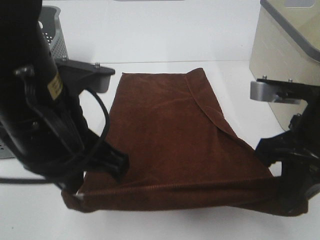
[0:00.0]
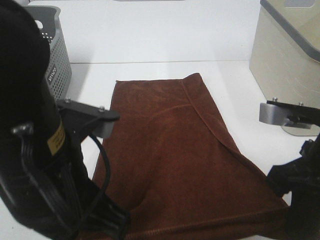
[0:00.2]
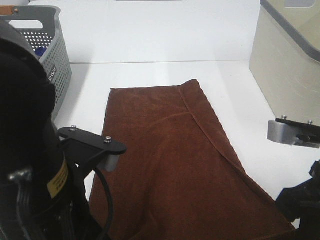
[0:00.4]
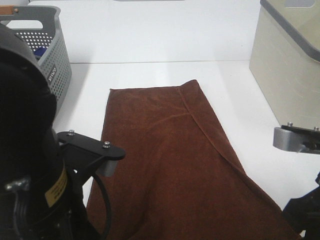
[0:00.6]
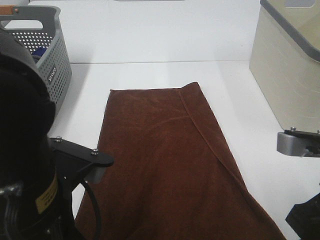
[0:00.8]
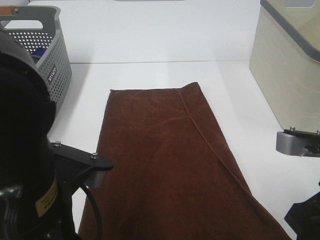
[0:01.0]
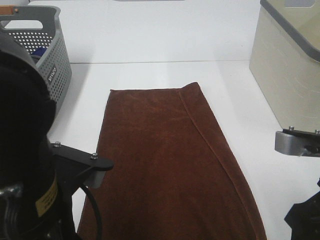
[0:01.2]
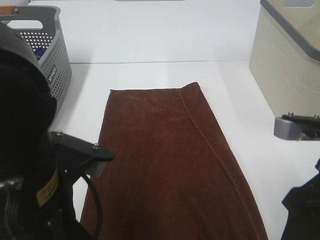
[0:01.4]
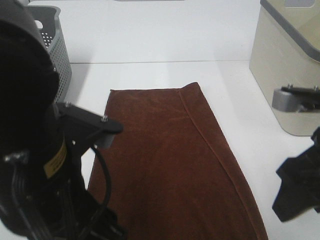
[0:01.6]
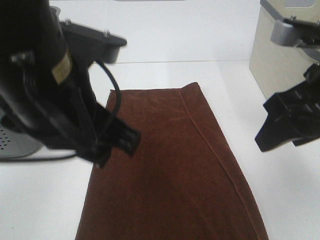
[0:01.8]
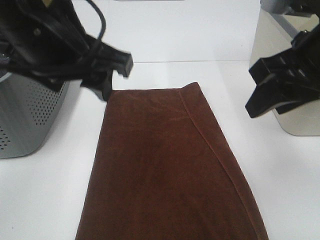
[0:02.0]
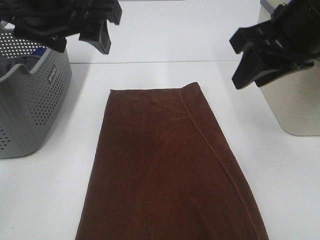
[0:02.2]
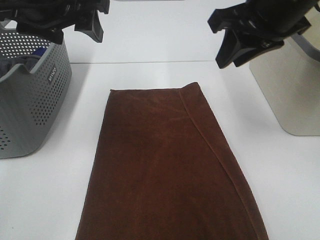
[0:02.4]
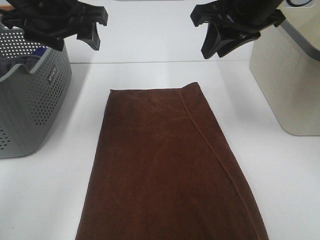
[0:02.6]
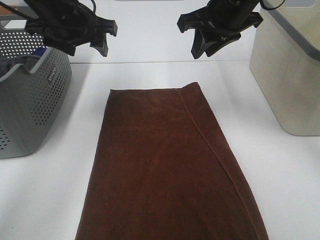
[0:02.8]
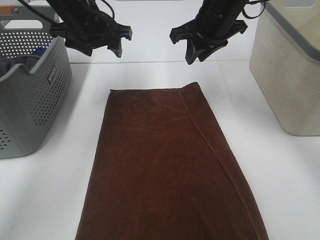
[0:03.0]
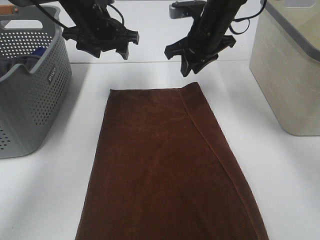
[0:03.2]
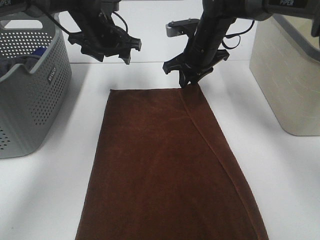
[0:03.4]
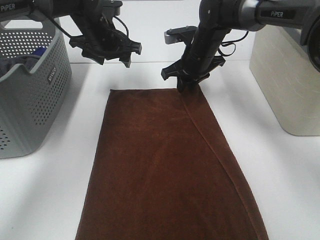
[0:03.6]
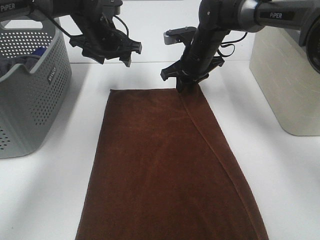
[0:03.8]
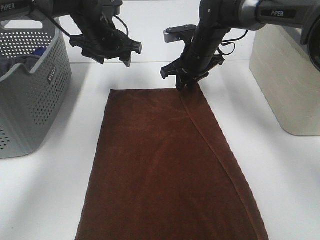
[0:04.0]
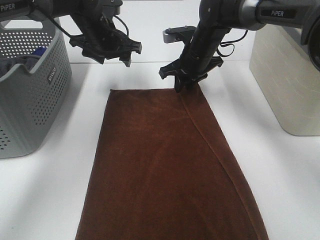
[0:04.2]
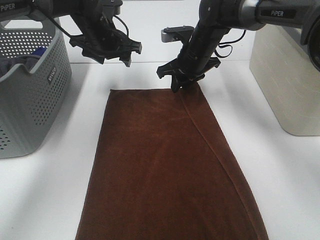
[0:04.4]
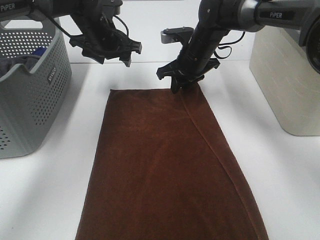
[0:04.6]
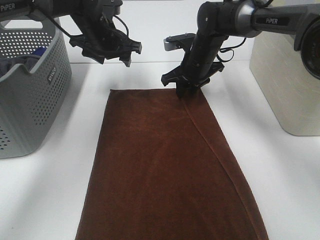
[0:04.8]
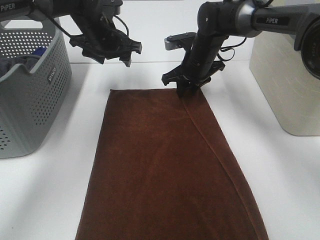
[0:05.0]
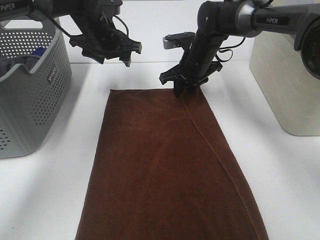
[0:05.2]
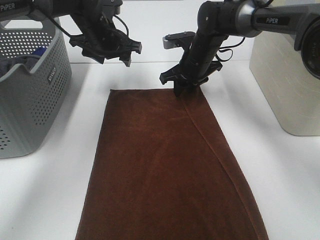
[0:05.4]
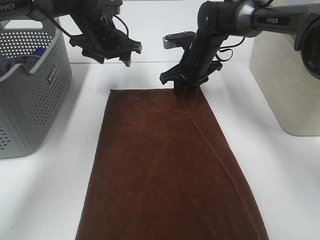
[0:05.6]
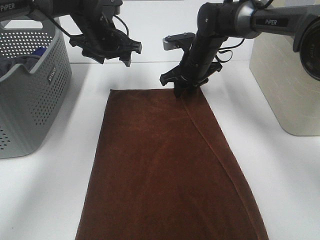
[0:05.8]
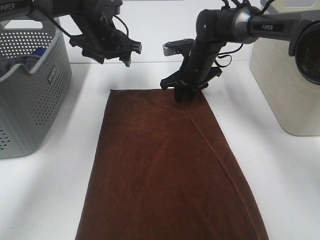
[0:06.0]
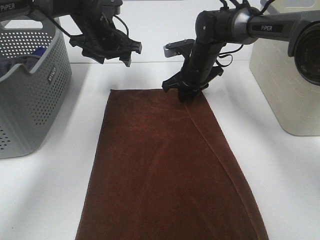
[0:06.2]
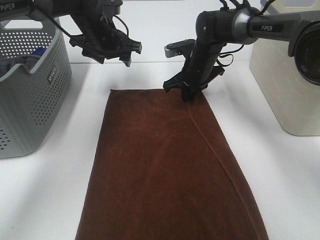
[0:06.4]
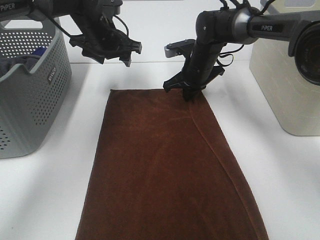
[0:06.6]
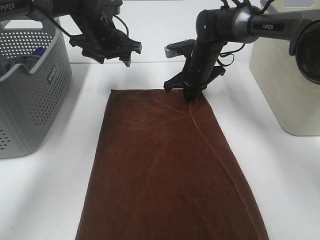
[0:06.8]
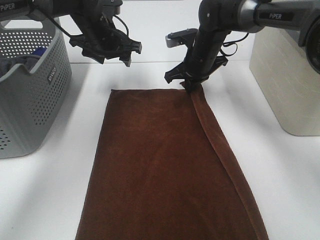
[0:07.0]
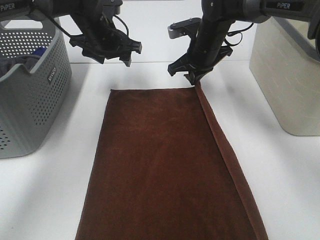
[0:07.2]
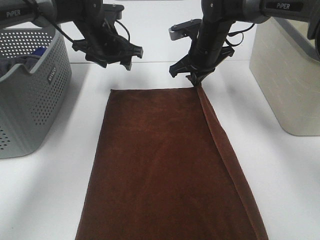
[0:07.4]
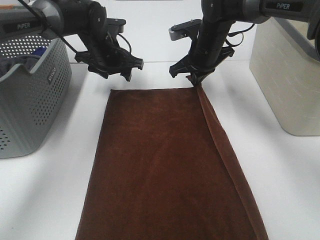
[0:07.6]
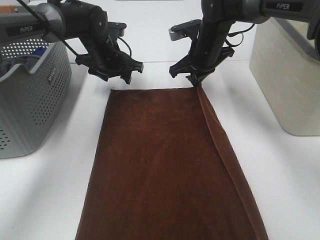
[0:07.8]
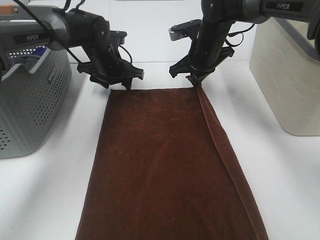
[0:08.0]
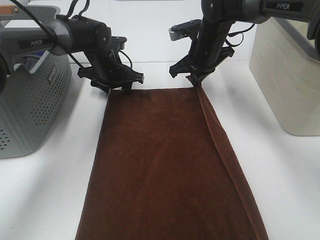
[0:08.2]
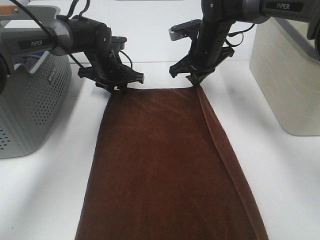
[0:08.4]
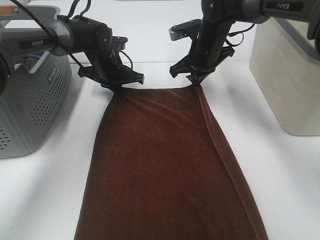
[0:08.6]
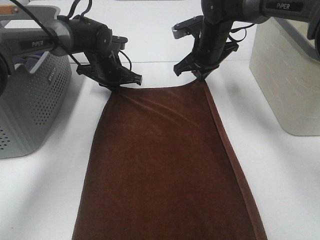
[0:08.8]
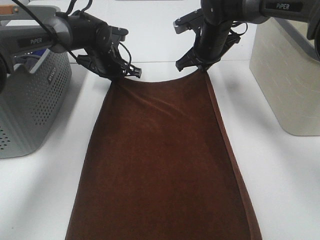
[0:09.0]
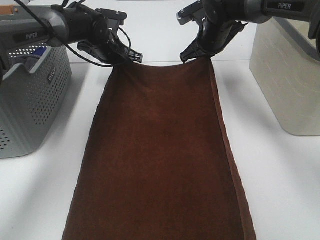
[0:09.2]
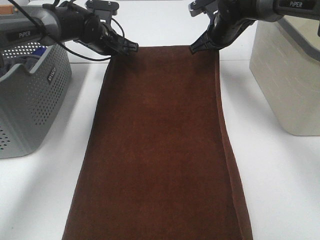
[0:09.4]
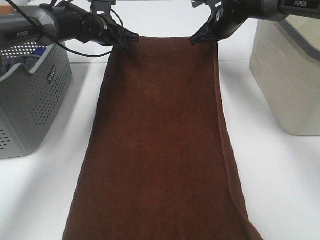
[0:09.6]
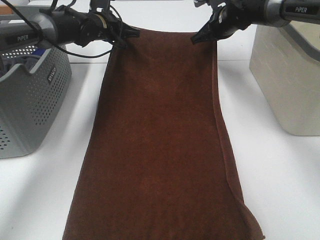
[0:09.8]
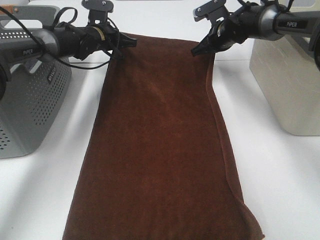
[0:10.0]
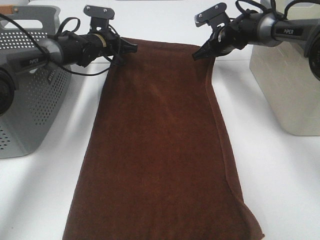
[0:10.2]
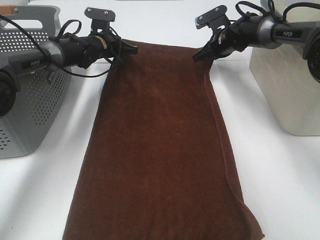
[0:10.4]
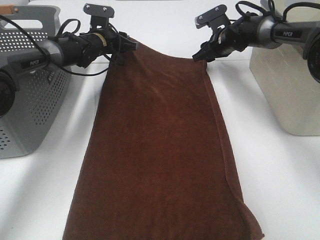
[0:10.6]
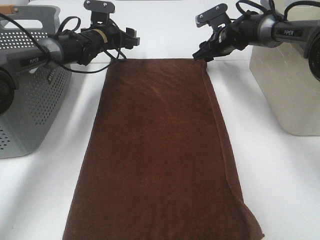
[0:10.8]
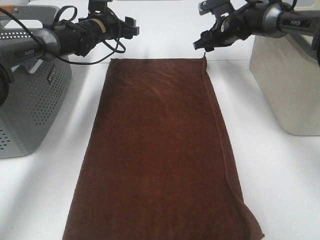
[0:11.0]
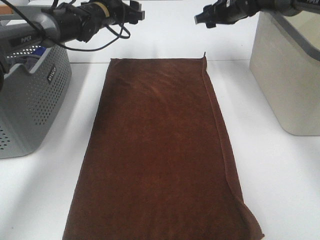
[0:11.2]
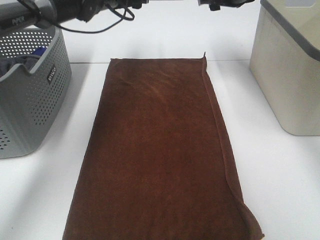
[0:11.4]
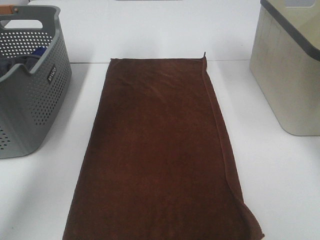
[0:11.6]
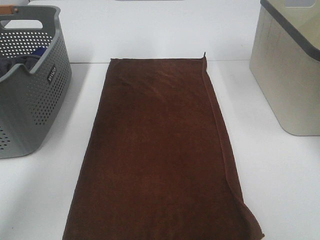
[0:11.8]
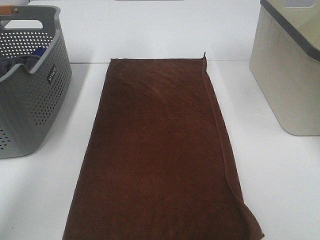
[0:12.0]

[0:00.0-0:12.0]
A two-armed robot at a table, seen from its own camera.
Task of the whole recording: Remove the towel and place it.
Step, 0:00.0 to 0:04.4: Left hand:adjust the brown towel.
Step, 0:00.0 to 0:04.4: Right hand:adjust the brown towel.
0:00.0 to 0:01.6: The left gripper shifts some 5 cm backward, and opens up; the right gripper opens.
0:01.6 to 0:03.0: Both grippers move forward, some 30 cm. The right gripper closes up.
0:03.0 to 0:04.4: The left gripper shifts by about 5 cm, while the right gripper is displaced downward by some 10 cm.
0:04.4 to 0:06.0: The grippers stay close to where they were, moving slightly.
0:06.0 to 0:07.6: The right gripper closes.
0:07.6 to 0:09.0: The left gripper closes up.
0:09.0 to 0:10.4: The left gripper travels forward by roughly 5 cm. Meanwhile the right gripper heads forward and to the right, covering some 10 cm.
0:10.4 to 0:12.0: Both grippers move upward and backward, roughly 30 cm. The left gripper opens up. Meanwhile the right gripper opens its fingers.

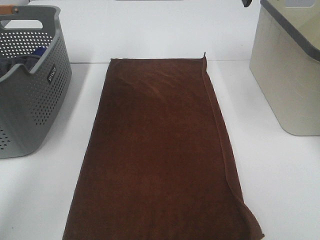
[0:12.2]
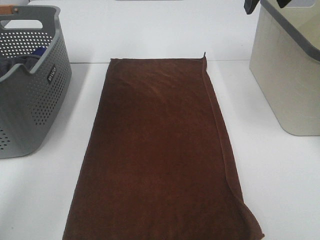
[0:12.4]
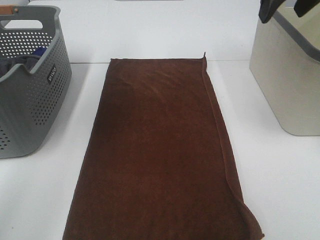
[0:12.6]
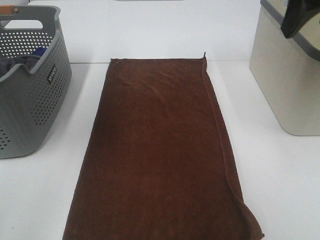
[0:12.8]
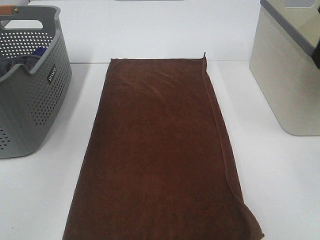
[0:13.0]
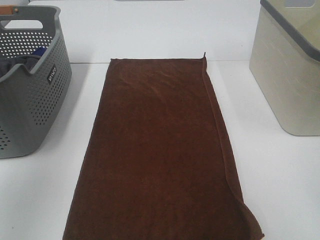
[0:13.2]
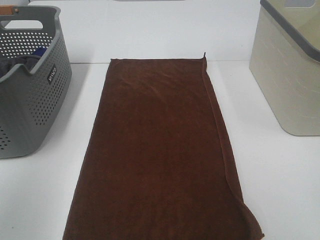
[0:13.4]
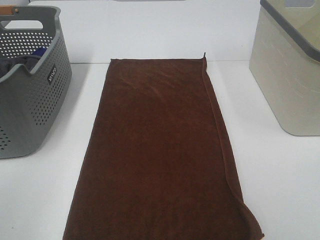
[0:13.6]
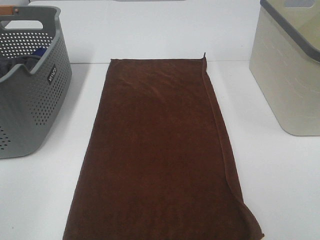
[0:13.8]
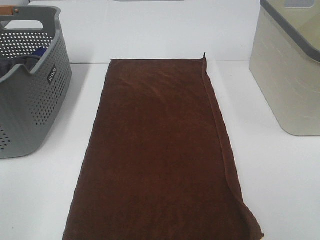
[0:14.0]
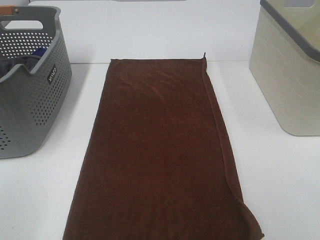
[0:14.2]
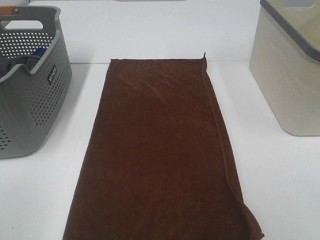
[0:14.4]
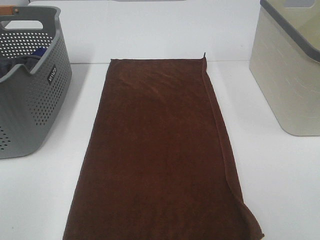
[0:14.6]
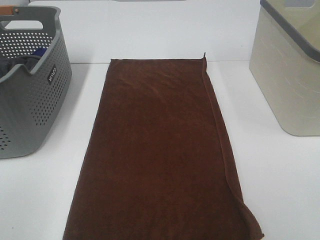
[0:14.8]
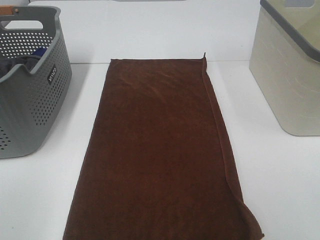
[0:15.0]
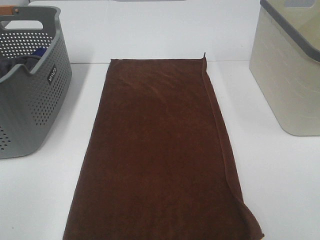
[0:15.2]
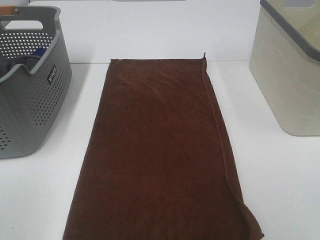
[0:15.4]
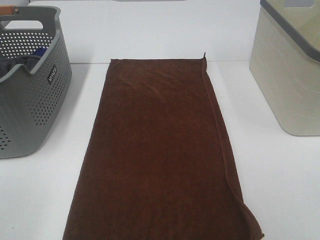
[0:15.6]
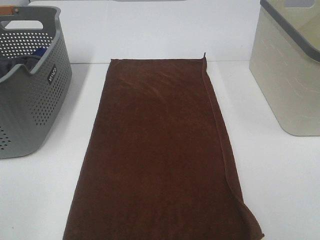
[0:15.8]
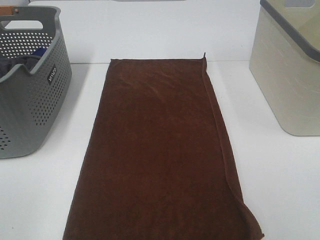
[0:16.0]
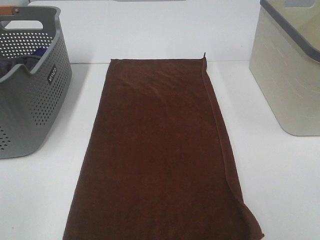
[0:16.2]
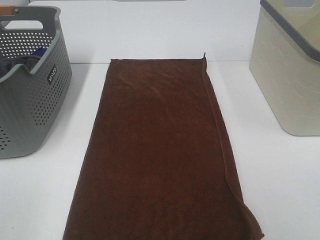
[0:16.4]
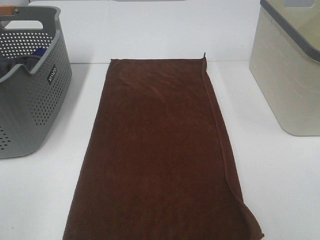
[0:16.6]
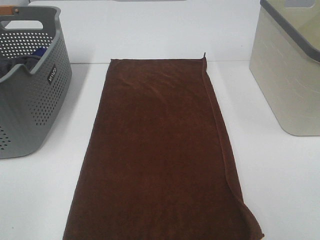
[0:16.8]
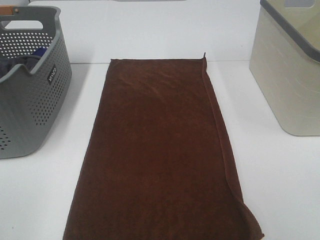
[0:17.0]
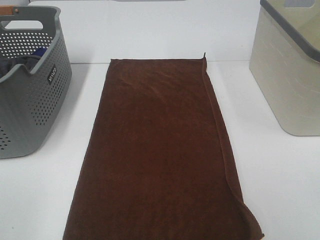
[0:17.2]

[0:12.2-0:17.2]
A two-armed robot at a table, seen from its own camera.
Task of the whole recording: Remove the towel and place it.
0:12.2 to 0:13.8: The two grippers go approximately 40 cm backward.

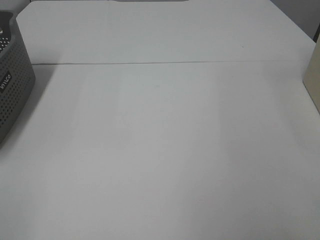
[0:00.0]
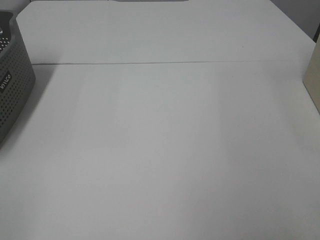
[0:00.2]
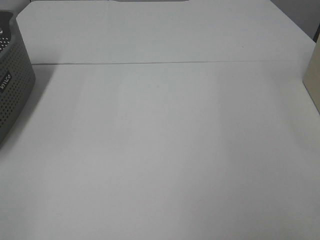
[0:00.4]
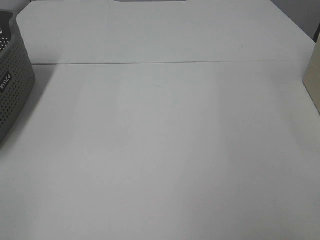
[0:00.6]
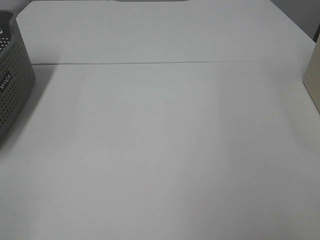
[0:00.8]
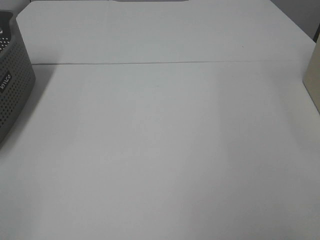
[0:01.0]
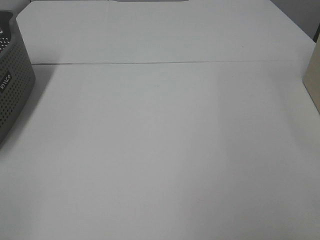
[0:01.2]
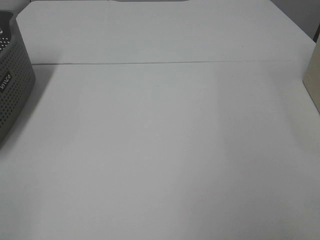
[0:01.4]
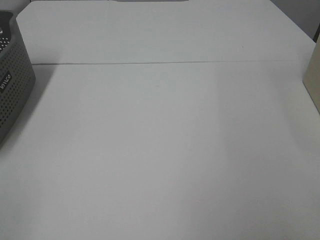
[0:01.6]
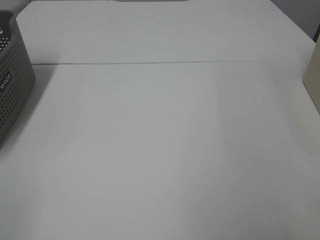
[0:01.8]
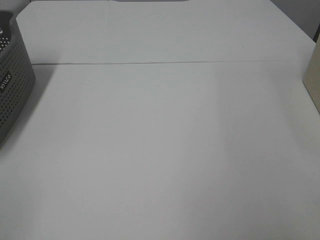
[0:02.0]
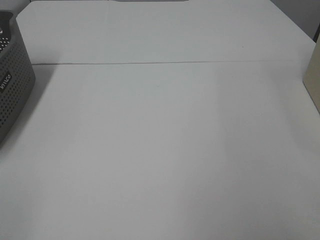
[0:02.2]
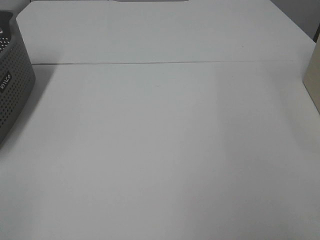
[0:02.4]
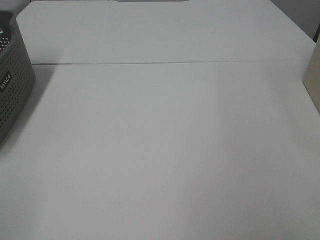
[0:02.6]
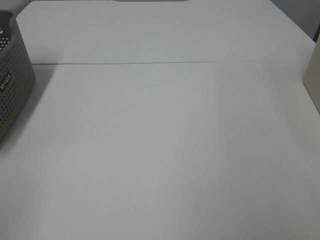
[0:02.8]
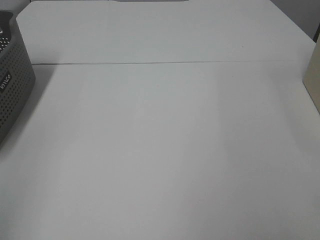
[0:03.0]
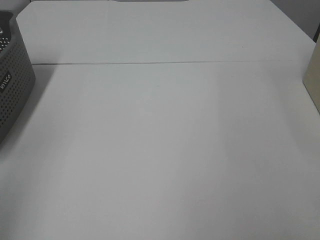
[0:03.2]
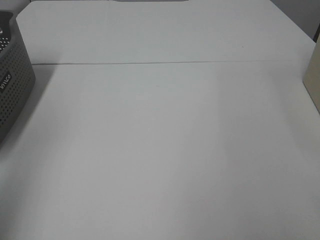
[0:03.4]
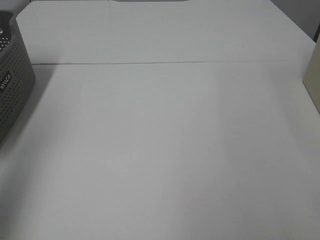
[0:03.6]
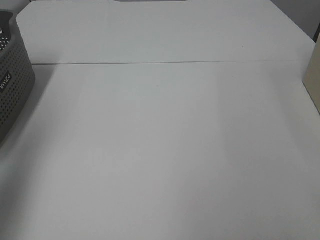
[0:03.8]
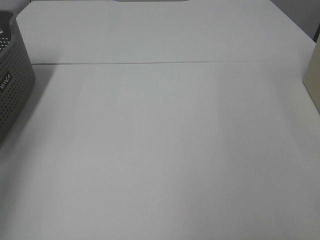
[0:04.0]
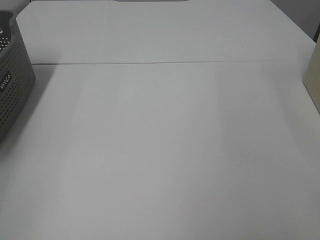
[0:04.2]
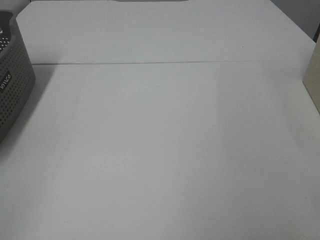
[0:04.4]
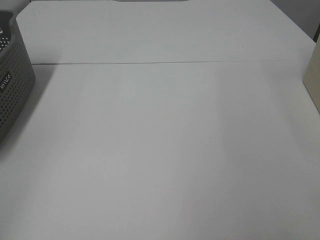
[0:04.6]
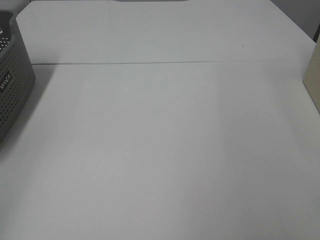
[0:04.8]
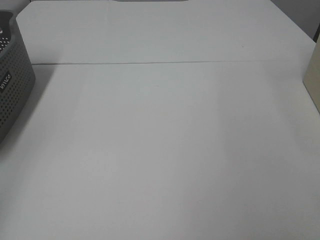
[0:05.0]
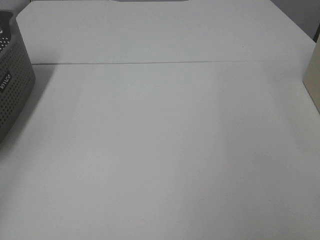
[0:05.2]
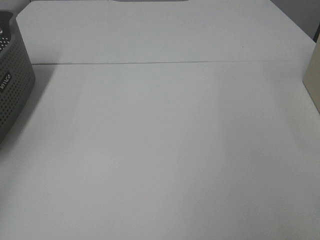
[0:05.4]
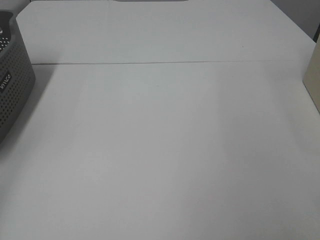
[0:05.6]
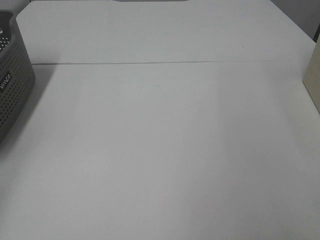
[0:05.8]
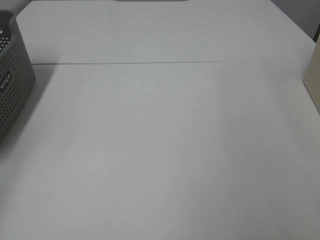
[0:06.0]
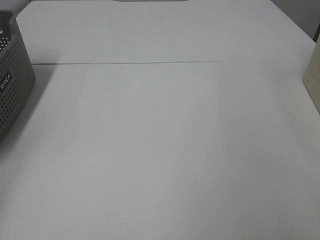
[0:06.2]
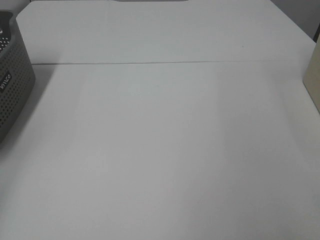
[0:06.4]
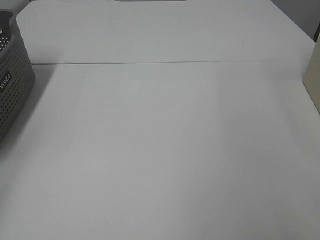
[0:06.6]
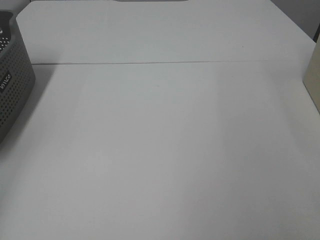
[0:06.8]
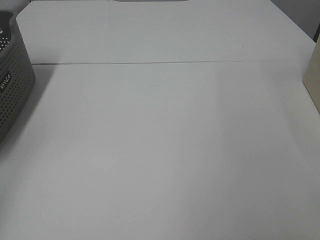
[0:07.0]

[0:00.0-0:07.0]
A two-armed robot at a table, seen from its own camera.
Task of the whole recording: Remove the towel and place it.
0:00.0 to 0:01.4: Neither gripper changes place.
